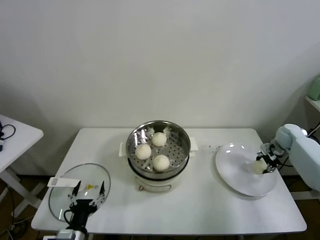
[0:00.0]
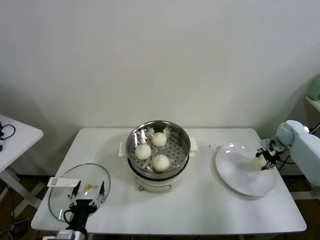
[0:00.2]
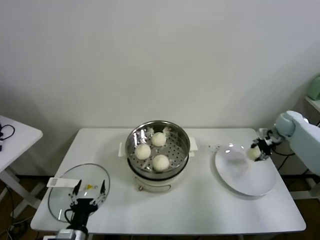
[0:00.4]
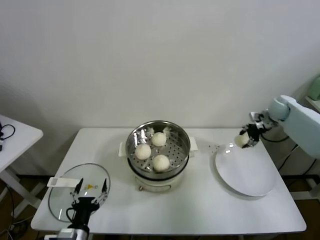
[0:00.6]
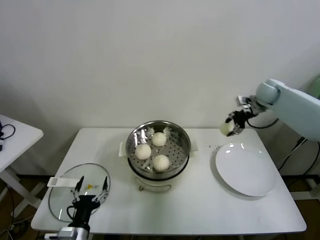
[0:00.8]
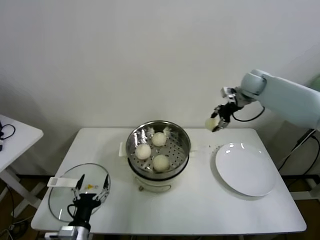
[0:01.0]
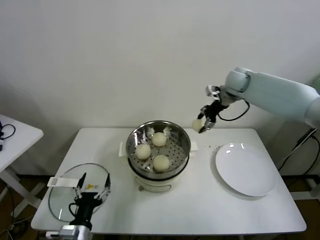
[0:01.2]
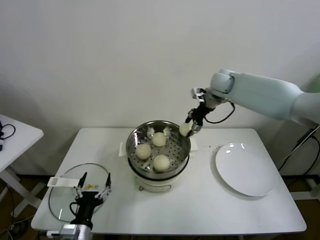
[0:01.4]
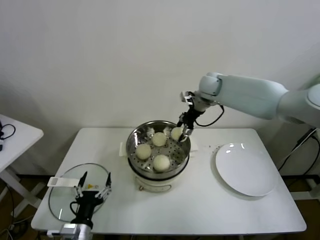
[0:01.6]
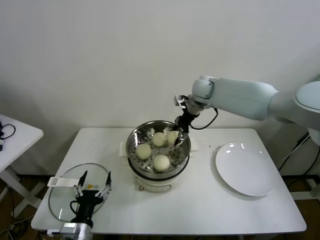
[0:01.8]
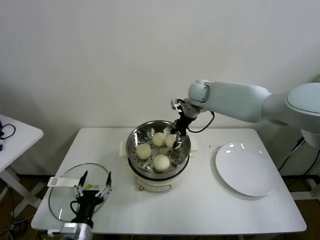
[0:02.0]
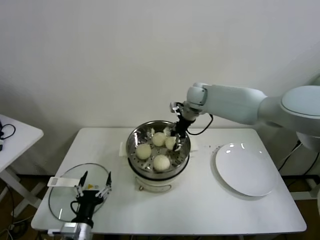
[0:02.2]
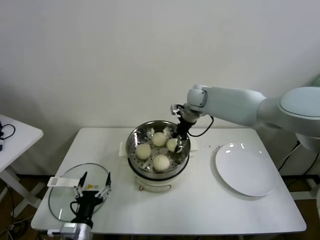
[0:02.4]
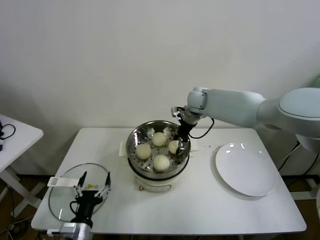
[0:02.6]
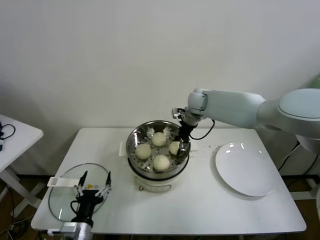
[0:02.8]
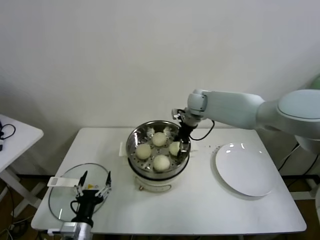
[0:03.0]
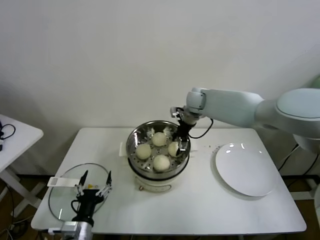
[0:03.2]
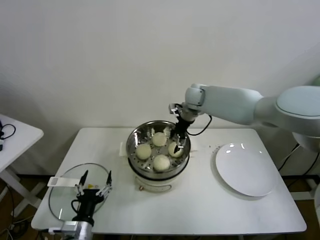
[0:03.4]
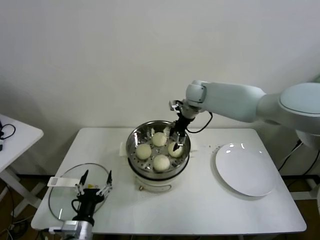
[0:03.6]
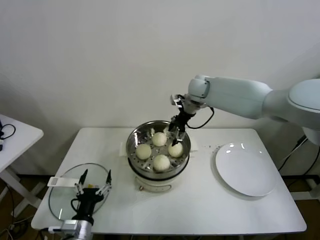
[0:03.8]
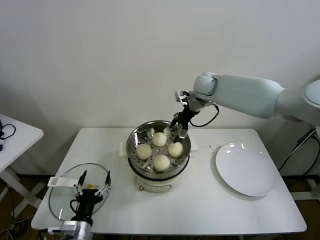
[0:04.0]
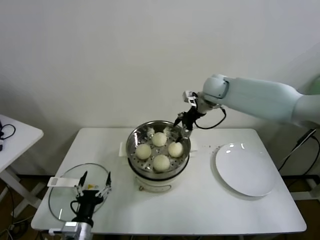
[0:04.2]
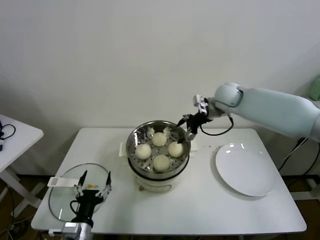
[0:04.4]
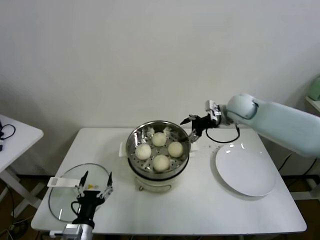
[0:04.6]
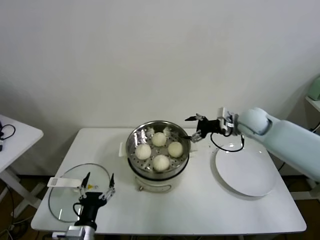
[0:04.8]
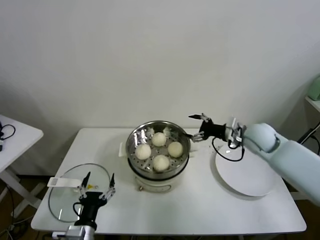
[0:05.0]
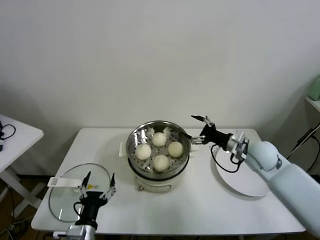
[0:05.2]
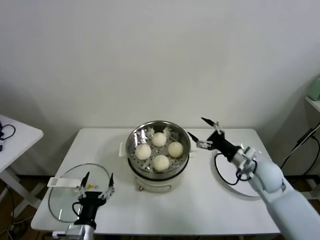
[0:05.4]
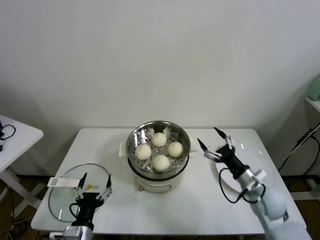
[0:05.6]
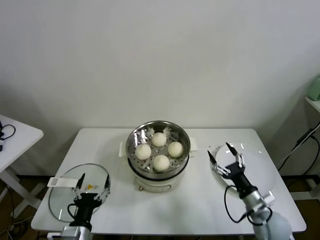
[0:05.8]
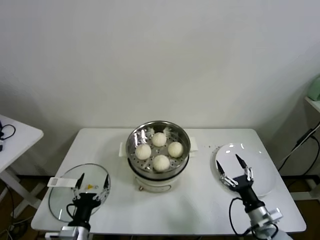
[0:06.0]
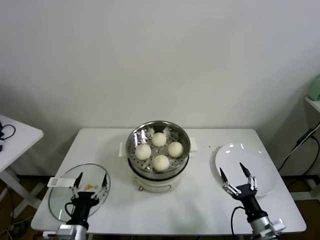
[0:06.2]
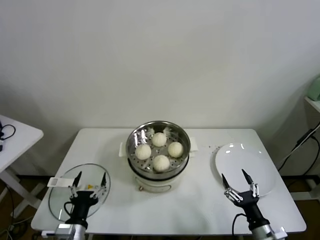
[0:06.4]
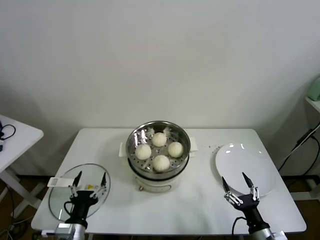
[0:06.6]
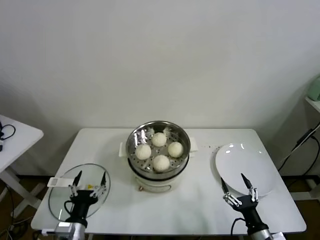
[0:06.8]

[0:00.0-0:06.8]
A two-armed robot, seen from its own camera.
Task of the whole recording: take steamed baozi put them in steamer.
Step, 0:00.0 to 0:03.0: Place the baozi on the steamer with right gripper.
0:00.0 to 0:01.4: The right gripper travels to the left and upward by about 35 cm.
0:01.4 to 0:02.8: The right gripper is displaced to the left and downward by approximately 10 cm.
0:02.8 to 0:04.0: The right gripper shifts some 5 cm upward, and opens.
0:04.0 to 0:05.4: The right gripper goes roughly 35 cm backward, downward and to the right.
0:05.4 to 0:06.8: The right gripper heads backward and downward, covering roughly 30 cm.
